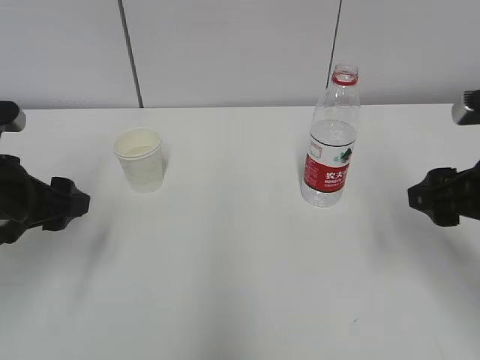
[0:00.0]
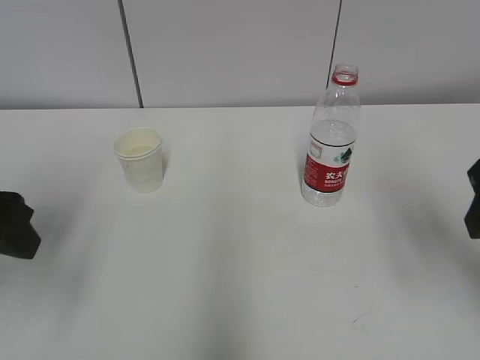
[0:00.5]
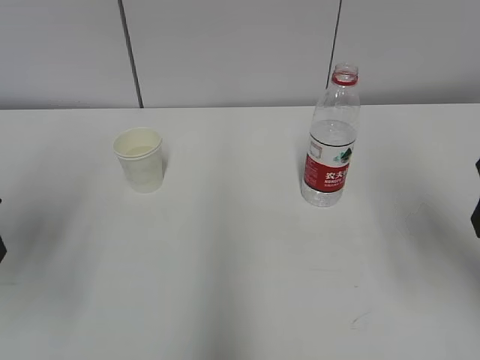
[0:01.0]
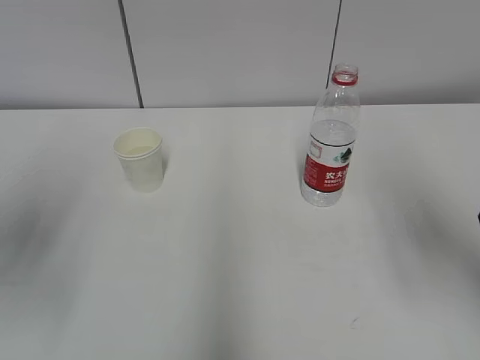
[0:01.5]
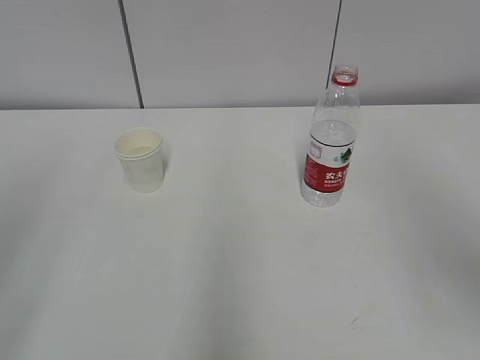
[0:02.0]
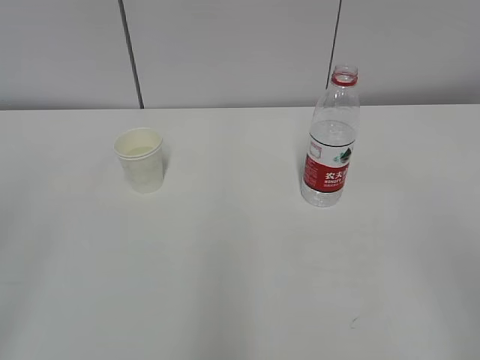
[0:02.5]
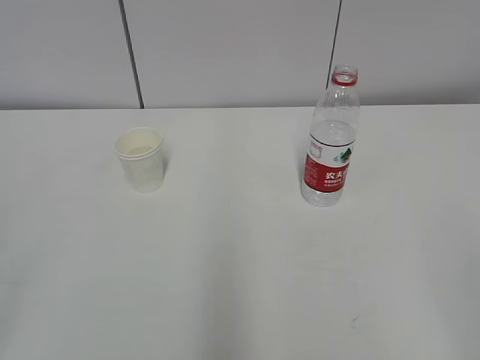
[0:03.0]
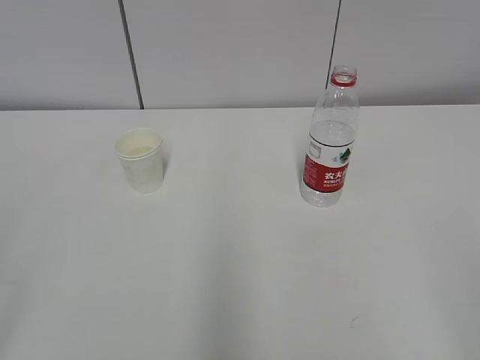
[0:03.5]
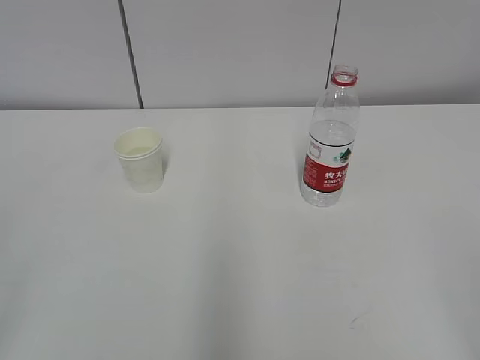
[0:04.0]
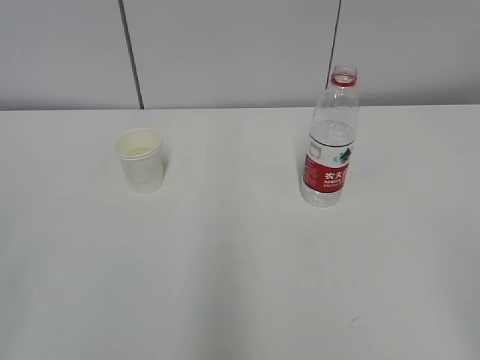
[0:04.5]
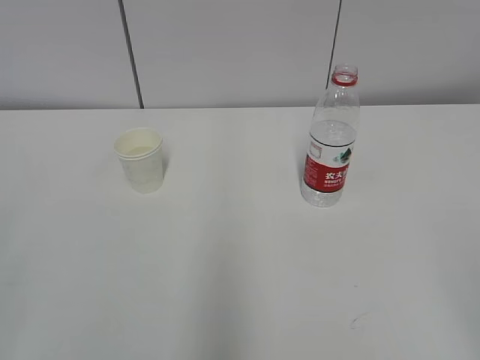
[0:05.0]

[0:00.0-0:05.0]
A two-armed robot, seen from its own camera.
0:00.0 to 0:02.5: The two grippers go approximately 25 cm backward and upward.
